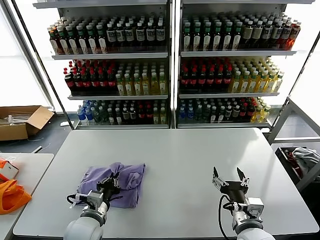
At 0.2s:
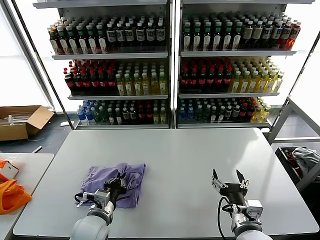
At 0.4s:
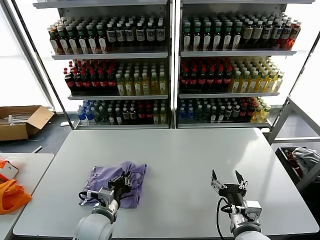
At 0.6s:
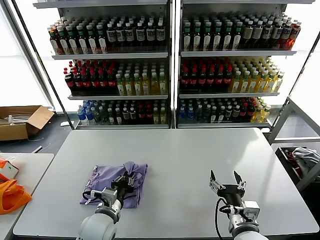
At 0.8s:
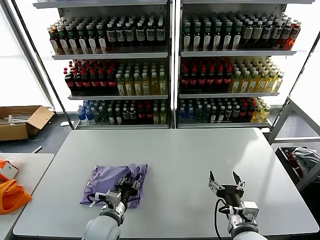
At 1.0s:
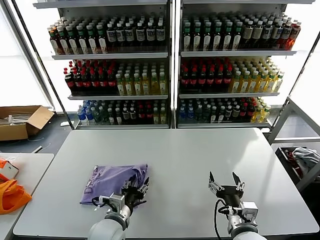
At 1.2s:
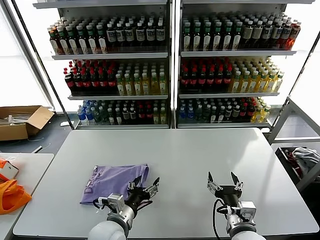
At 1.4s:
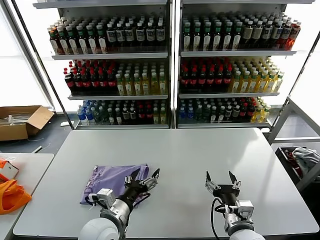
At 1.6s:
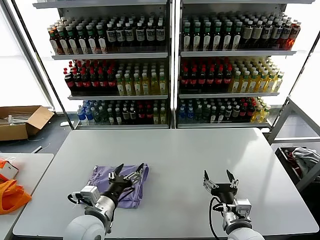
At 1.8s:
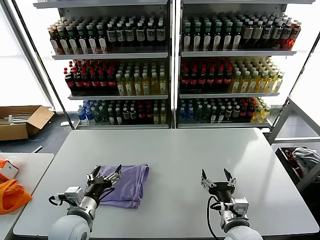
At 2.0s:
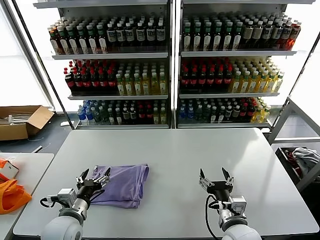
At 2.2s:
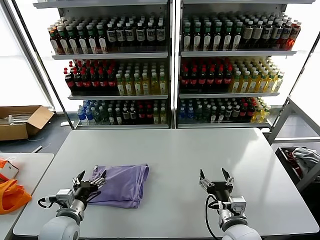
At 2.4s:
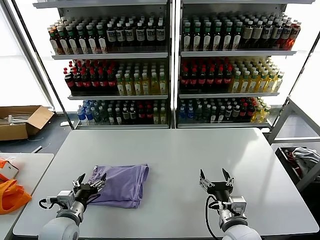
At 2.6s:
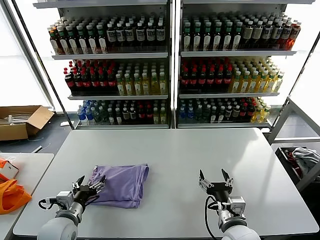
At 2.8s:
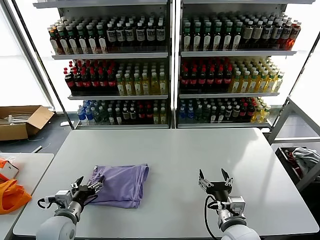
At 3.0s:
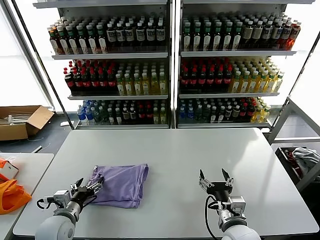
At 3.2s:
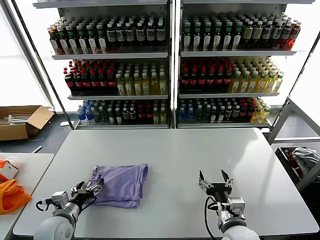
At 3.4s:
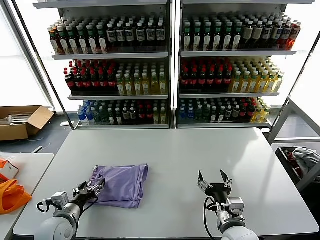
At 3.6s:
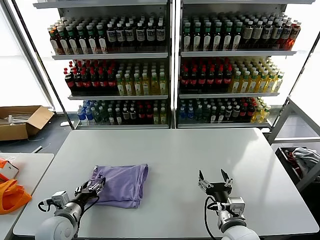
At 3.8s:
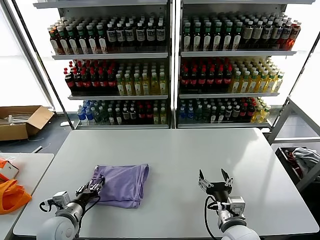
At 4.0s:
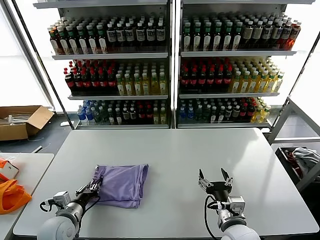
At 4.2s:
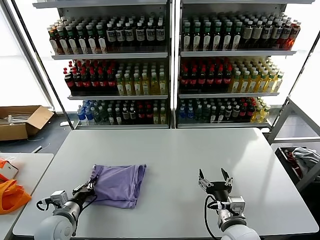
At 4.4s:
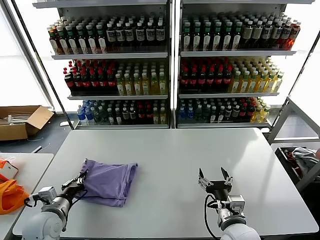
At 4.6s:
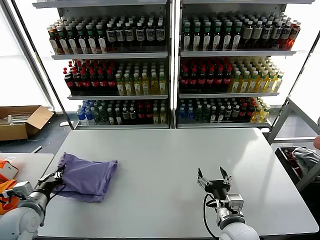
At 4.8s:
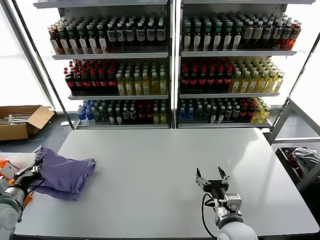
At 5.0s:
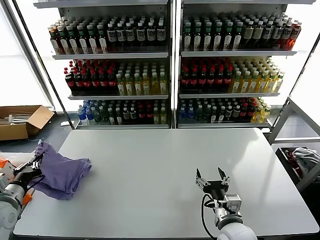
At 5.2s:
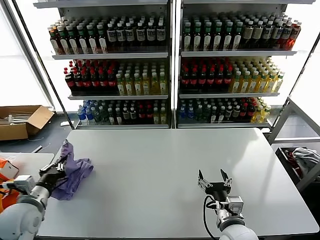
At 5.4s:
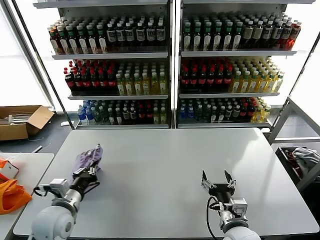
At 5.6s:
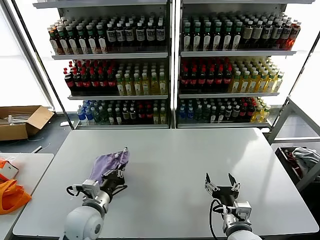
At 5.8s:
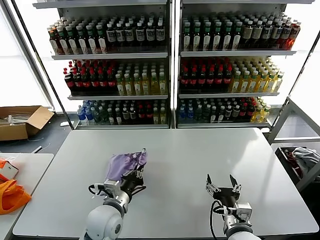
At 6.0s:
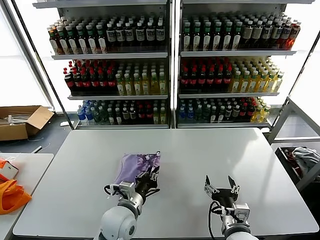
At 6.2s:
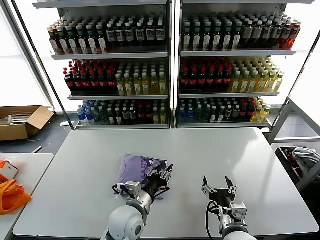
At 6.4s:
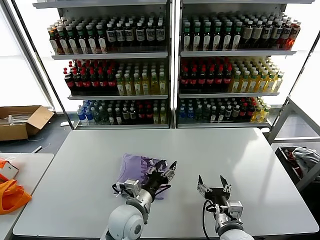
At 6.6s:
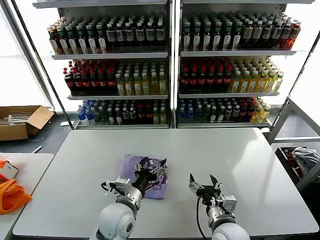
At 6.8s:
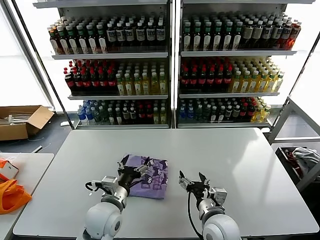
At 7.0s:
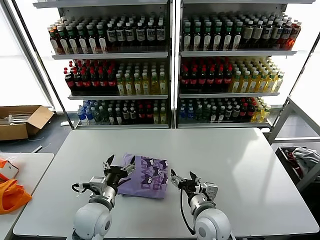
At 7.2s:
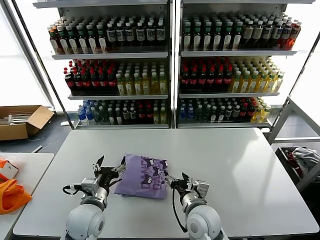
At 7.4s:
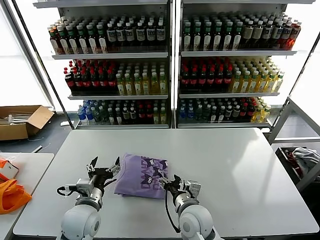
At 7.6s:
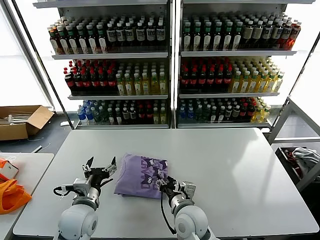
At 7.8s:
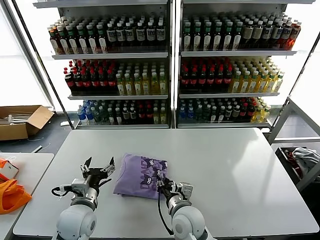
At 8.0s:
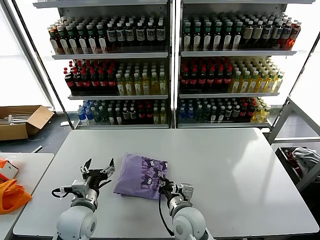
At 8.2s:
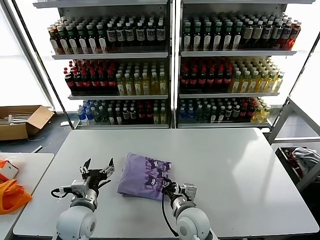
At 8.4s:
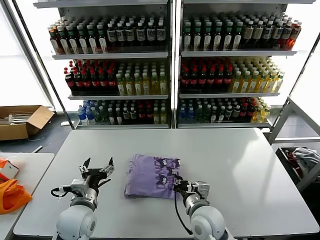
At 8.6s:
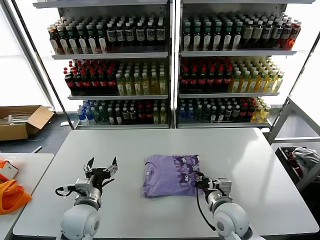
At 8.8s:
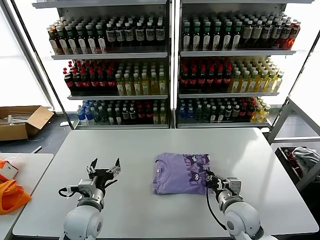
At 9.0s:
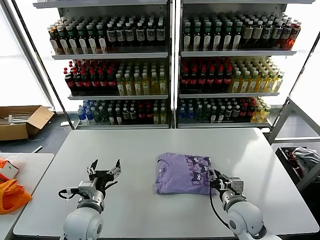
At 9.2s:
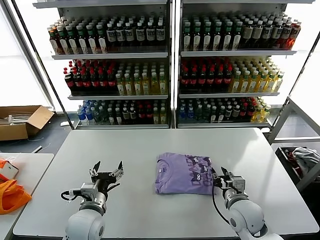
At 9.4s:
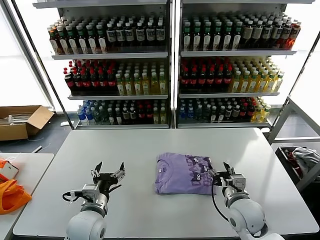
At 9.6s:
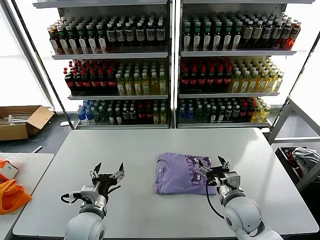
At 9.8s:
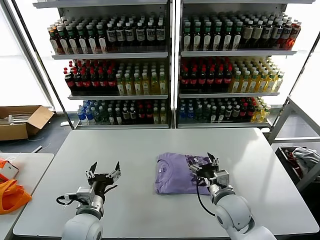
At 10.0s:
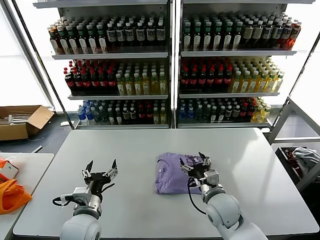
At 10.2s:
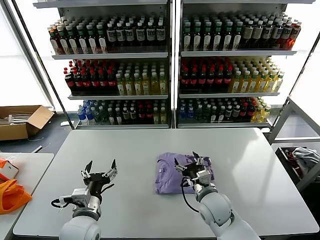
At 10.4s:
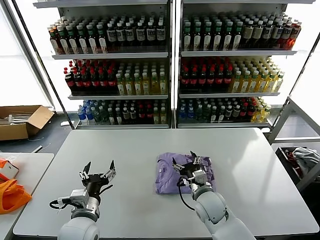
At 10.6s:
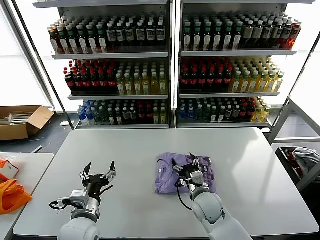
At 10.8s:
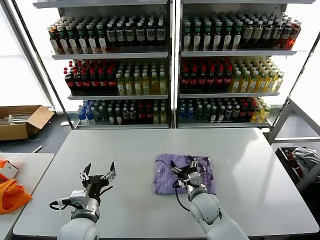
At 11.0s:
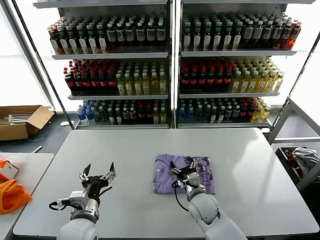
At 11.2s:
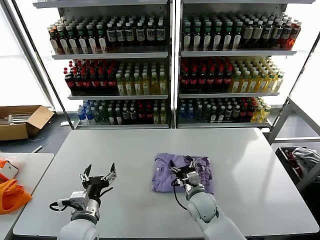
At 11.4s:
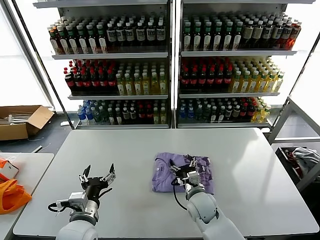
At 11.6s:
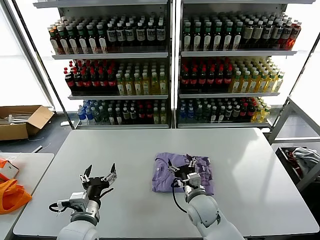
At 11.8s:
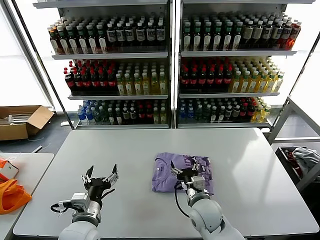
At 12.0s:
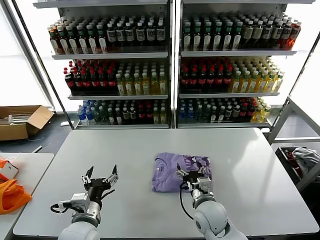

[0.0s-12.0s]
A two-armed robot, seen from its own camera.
Task of the whole recording: fold and organize the clothes.
Step, 1.2s to 6.2s: Flip the folded clothes over with left gripper.
0.0s to 1.6s: The left gripper is displaced upward by roughly 5 cm, and opens.
1.6s to 3.0s: The left gripper is displaced to the left and downward by approximately 15 cm.
3.0s to 4.4s: The left gripper closes its fingers.
4.4s to 6.0s: The left gripper heads to the right, covering some 20 cm.
6.0s to 7.6s: The right gripper travels to the left and forward by about 15 cm. Meanwhile the left gripper goes approximately 10 cm to the left, and opens.
7.6s to 9.0s: The right gripper shifts approximately 15 cm to the right, and closes its fingers.
9.0s to 10.4s: The right gripper goes approximately 10 cm to the left, and opens up.
10.4s to 12.0s: The grippers make only small movements.

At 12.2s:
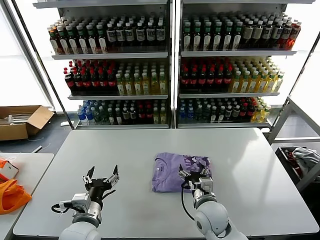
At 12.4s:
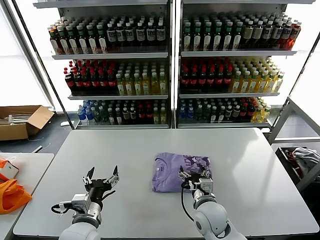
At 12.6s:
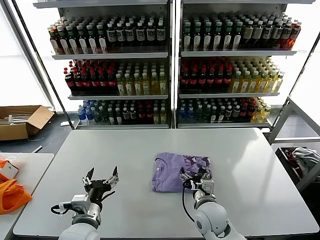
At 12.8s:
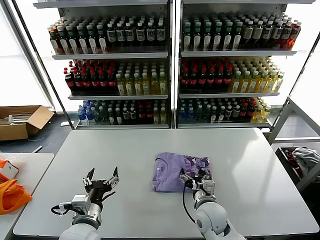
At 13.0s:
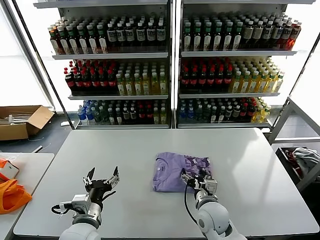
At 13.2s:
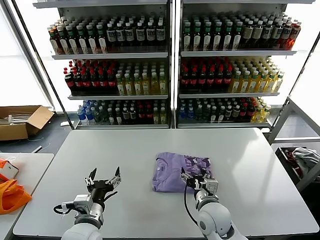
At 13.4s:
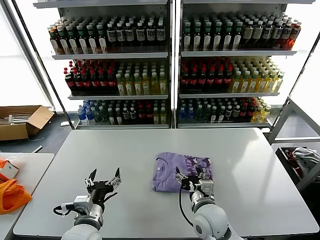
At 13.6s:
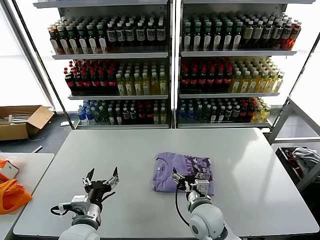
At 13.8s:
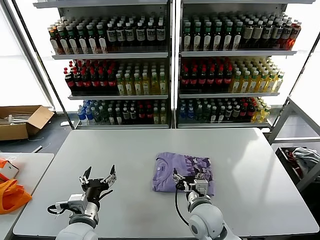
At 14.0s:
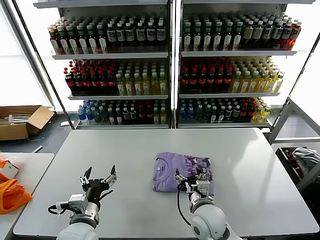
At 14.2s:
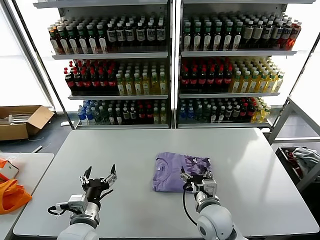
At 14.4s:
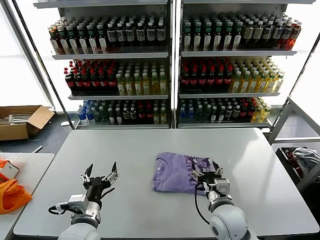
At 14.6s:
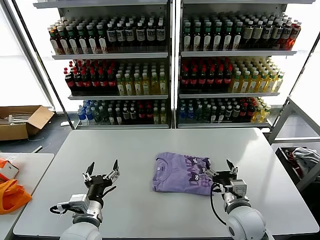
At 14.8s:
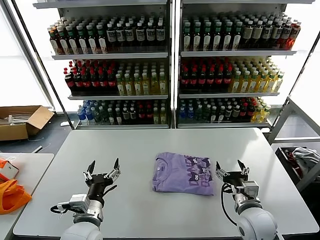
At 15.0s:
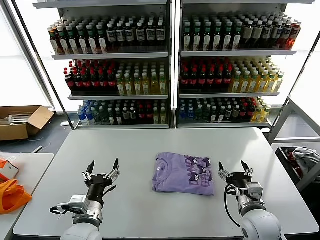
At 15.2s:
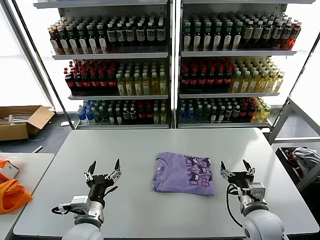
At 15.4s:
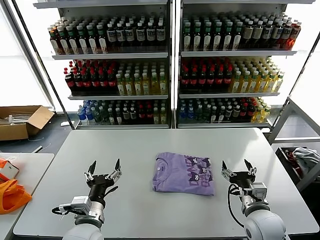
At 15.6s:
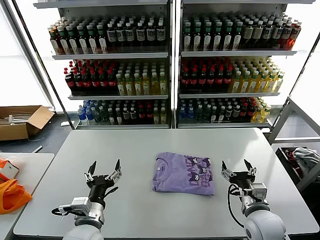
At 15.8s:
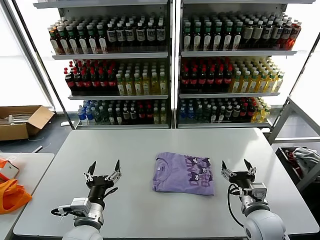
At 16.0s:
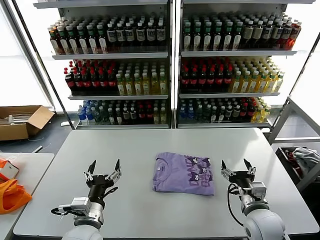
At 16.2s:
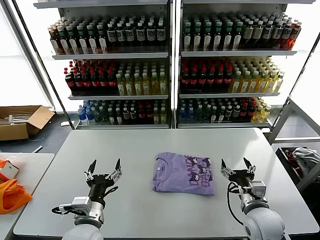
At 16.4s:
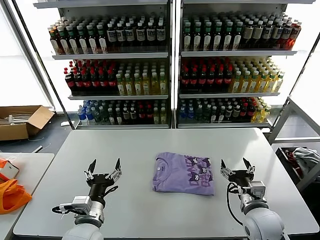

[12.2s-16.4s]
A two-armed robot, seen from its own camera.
Task of the whole recording: fold and organize the clothes.
12.2s to 13.6s: The grippers make only small movements.
13.6s to 15.0s: The right gripper shifts about 15 cm to the right.
15.0s to 16.4s: Both grippers stay about where they are.
